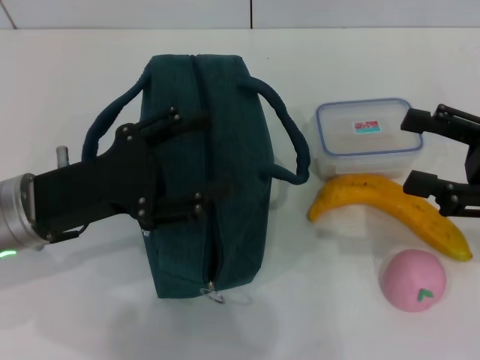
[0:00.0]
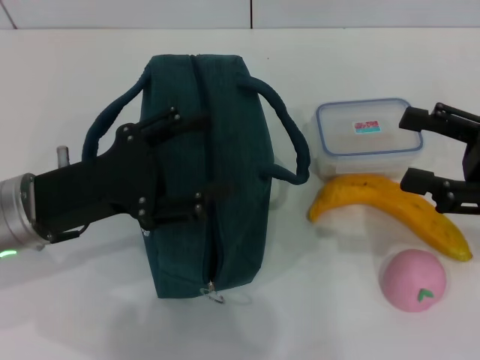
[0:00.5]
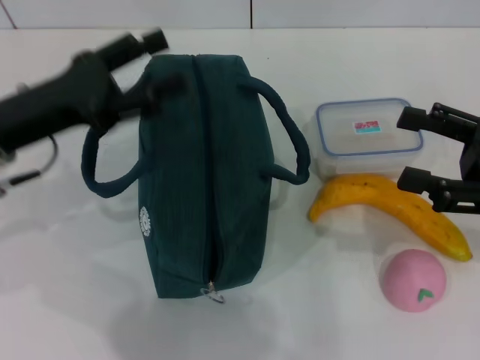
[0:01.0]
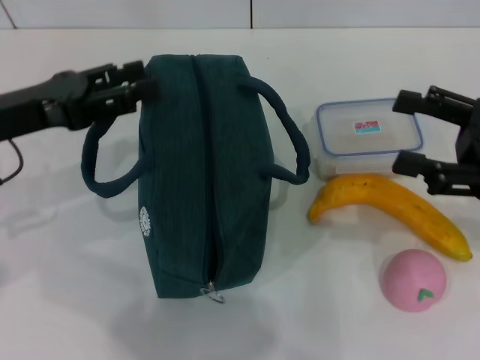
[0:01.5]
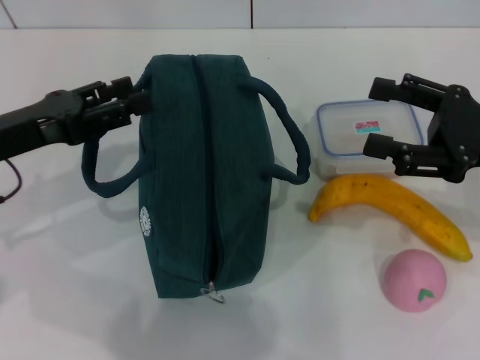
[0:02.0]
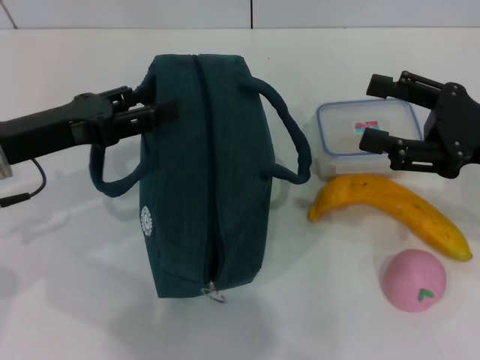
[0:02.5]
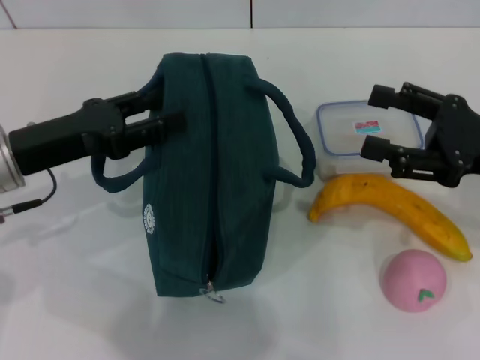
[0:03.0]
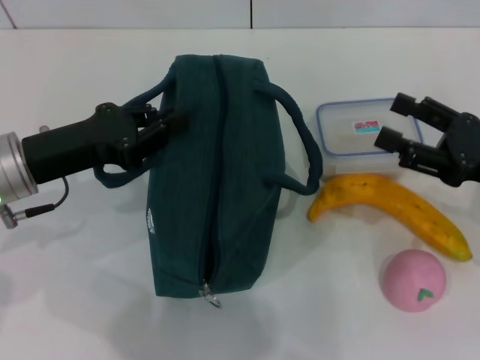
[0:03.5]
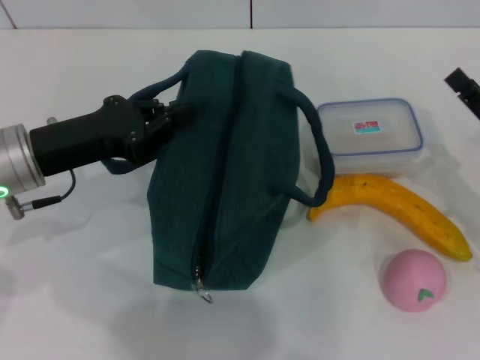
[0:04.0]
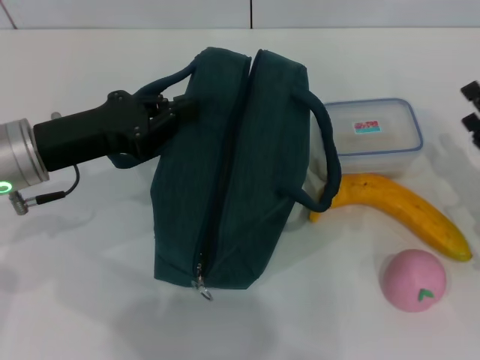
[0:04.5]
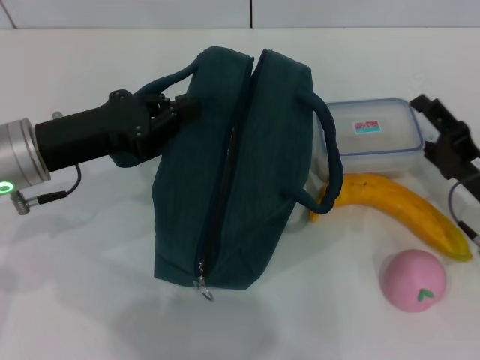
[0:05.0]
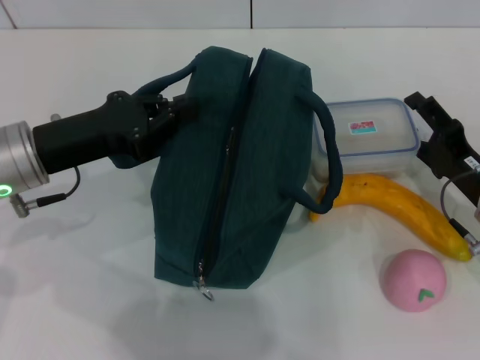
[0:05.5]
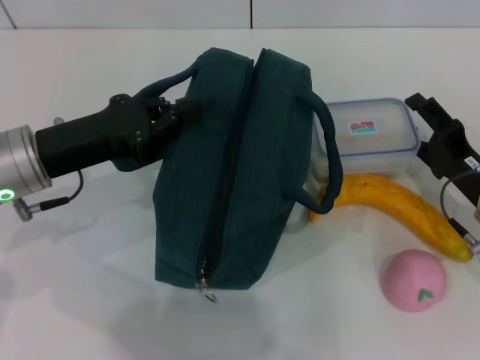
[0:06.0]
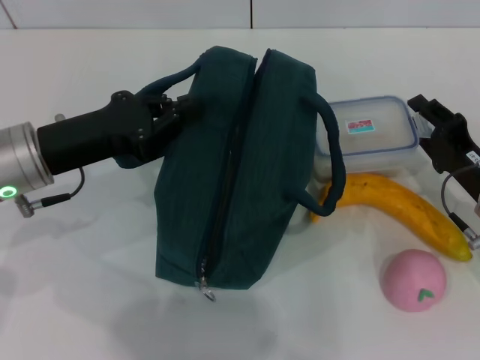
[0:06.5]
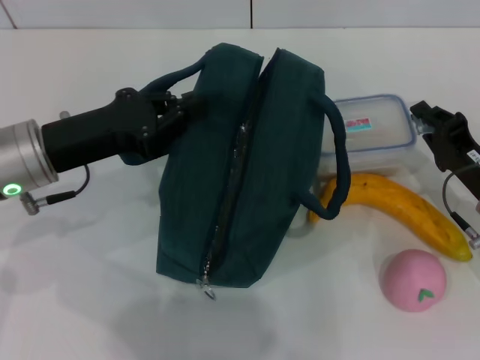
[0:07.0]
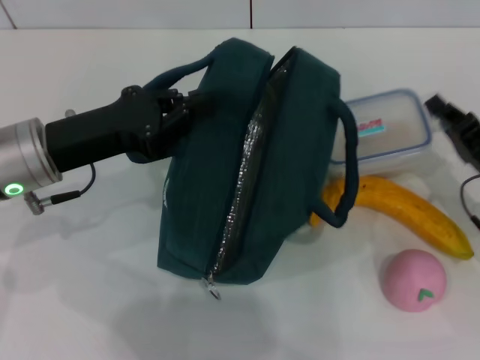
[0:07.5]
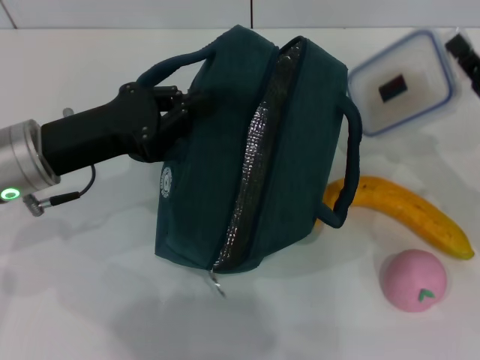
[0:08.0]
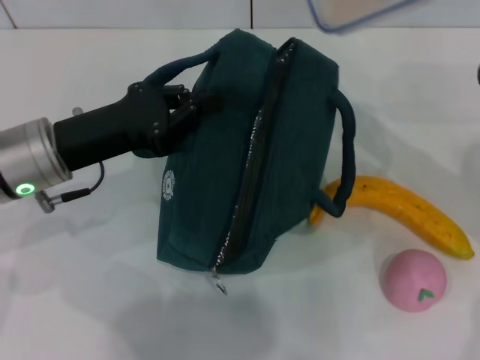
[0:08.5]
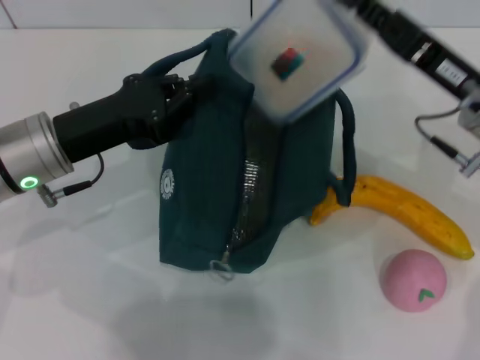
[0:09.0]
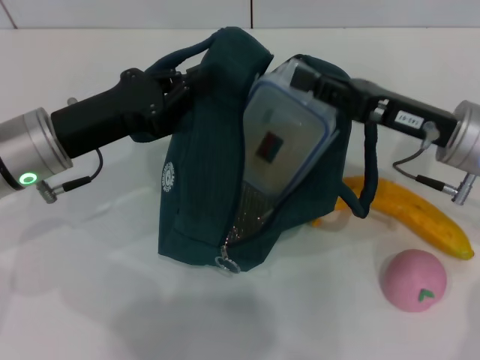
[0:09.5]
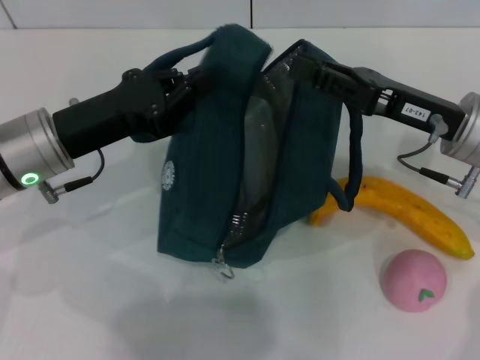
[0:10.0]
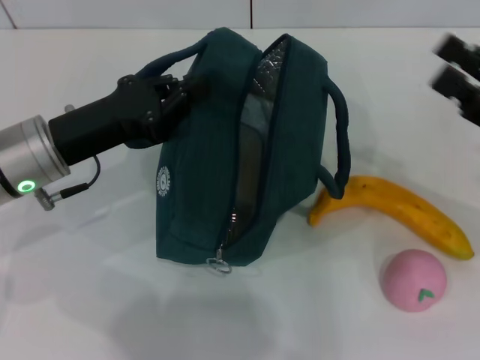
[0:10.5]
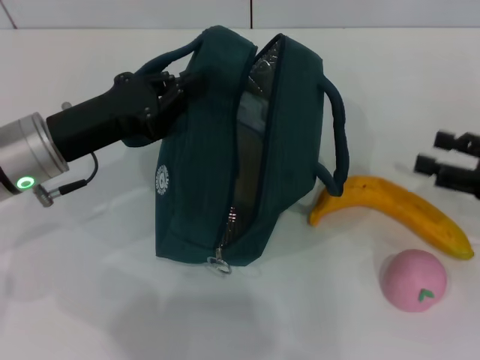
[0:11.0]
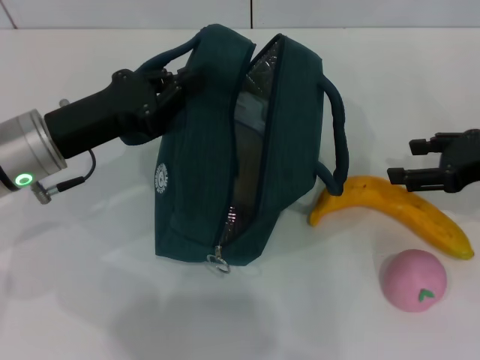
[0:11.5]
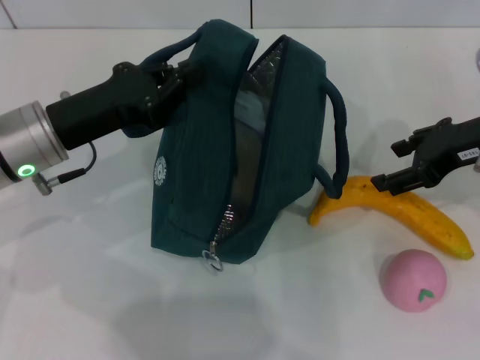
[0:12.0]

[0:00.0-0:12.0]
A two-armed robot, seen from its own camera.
Step, 0:00.0 to 0:04.0: Hold the lunch bag with your left hand.
Step, 0:04.5 to 0:07.0: Pick up the lunch box with your right hand.
Step, 0:07.5 to 0:09.5: Place the lunch box into the lunch bag with your right hand.
0:00.0 to 0:02.0: The left gripper heads to the left, covering about 5 cm.
0:02.0 to 0:04.0: The left gripper closes up. The right gripper travels downward by approximately 10 cm.
0:04.0 to 0:06.0: The right gripper ends up roughly 5 cm from where it was.
0:06.0 to 0:08.0: The right gripper is displaced upward by some 5 cm, and closes up.
0:08.0 to 0:10.0: The right gripper is displaced to the left and upward by roughly 10 cm.
0:10.0 to 0:12.0: The right gripper goes to the right and returns, about 15 cm each way, and opens its fingers.

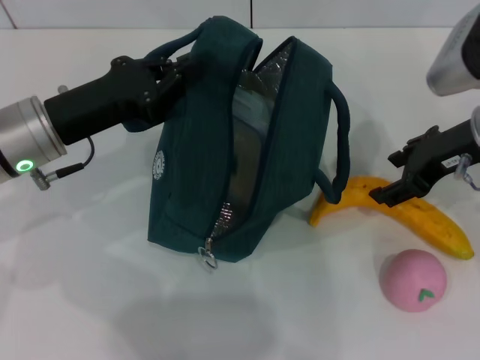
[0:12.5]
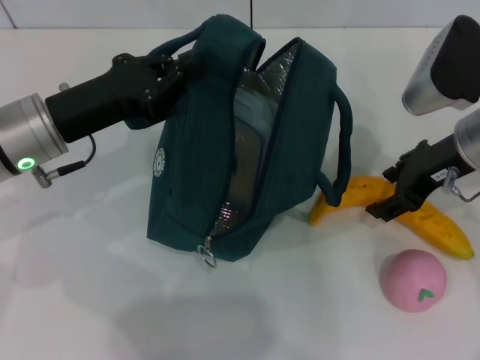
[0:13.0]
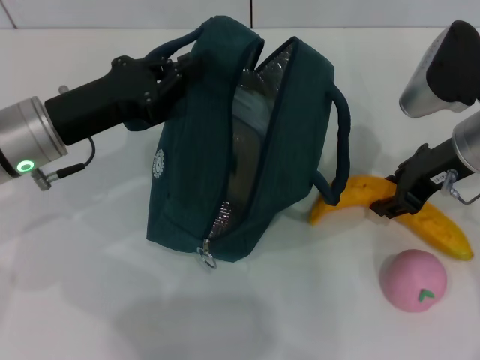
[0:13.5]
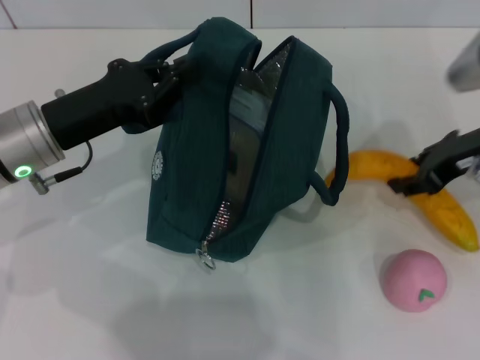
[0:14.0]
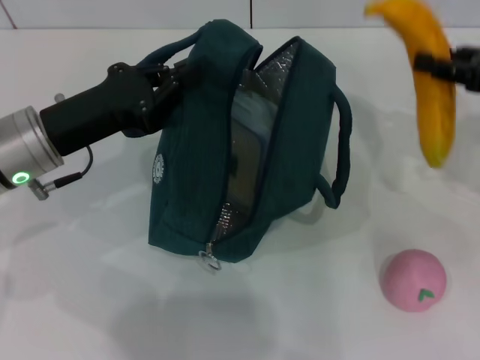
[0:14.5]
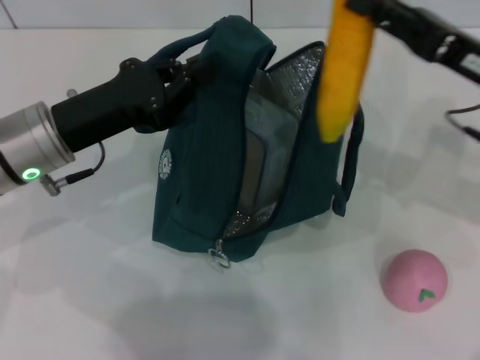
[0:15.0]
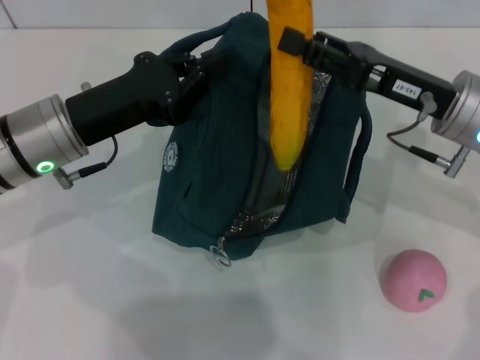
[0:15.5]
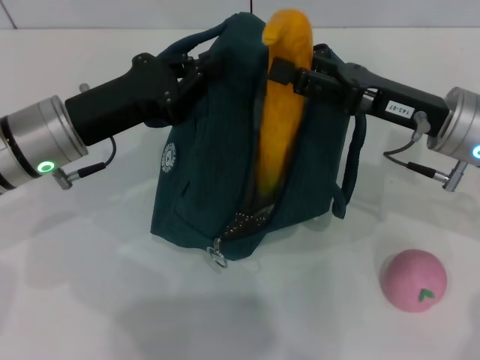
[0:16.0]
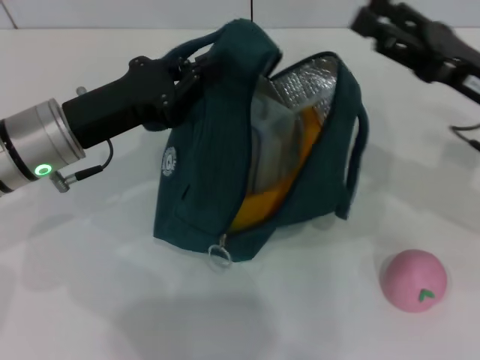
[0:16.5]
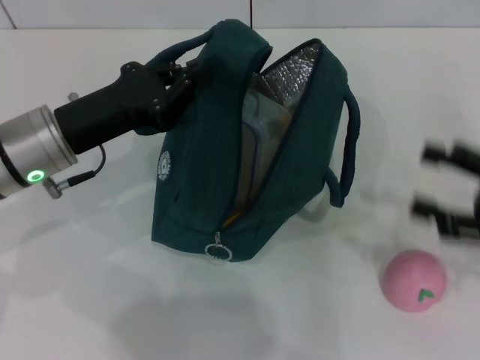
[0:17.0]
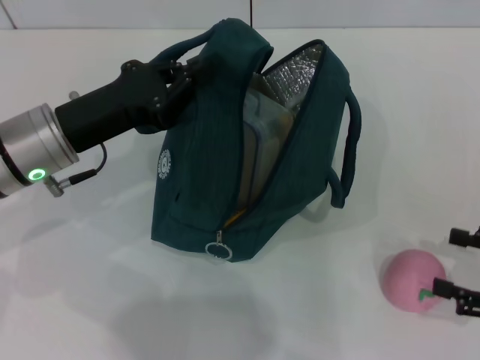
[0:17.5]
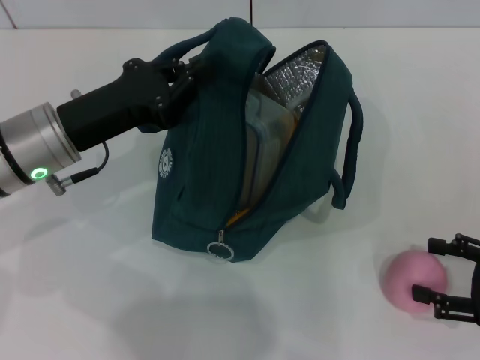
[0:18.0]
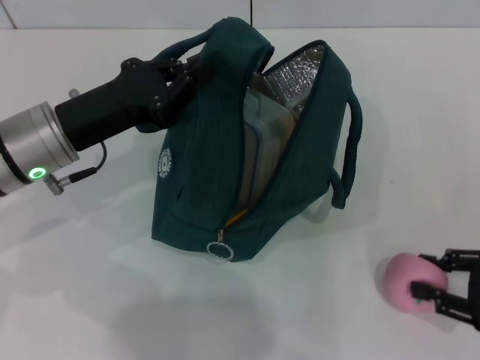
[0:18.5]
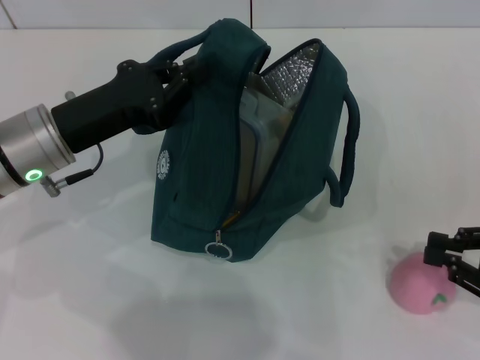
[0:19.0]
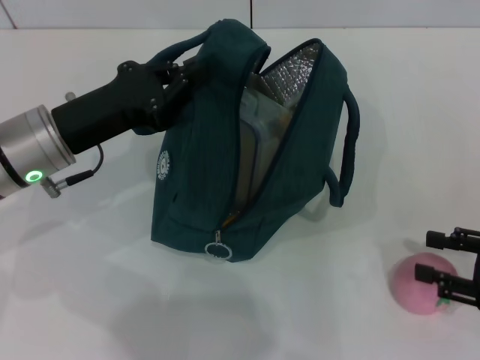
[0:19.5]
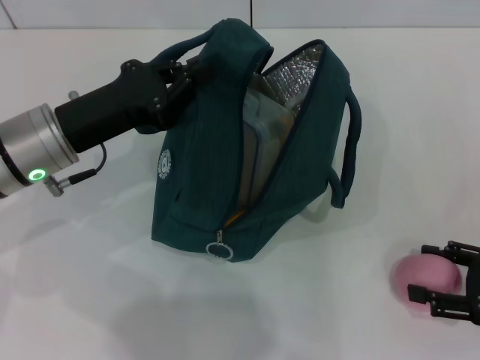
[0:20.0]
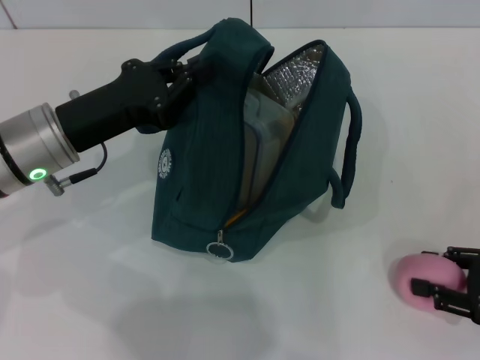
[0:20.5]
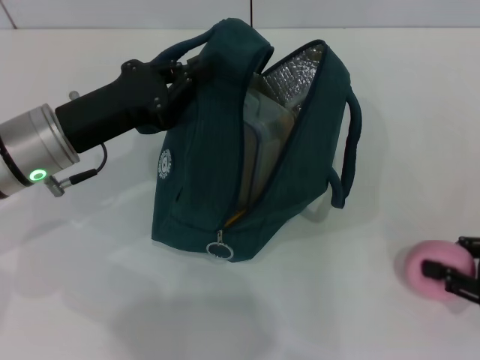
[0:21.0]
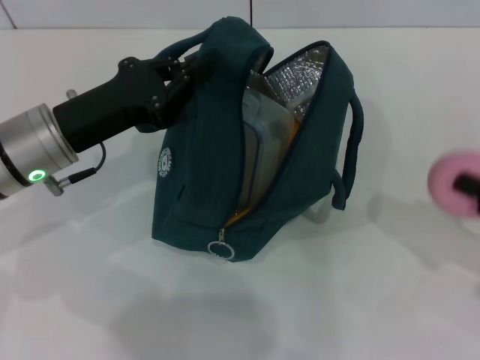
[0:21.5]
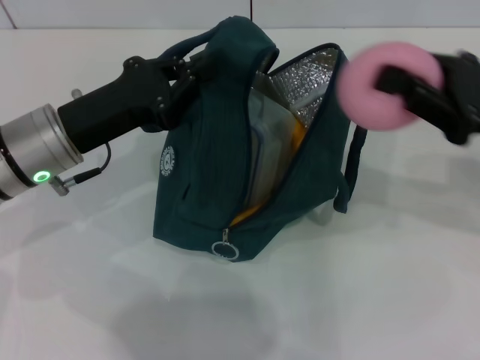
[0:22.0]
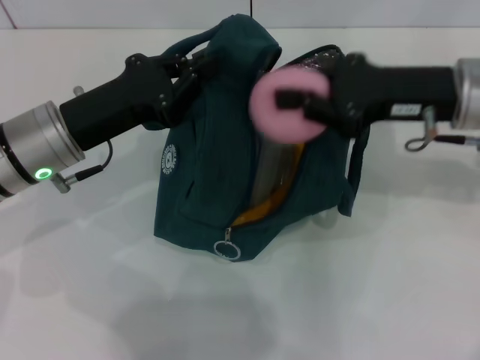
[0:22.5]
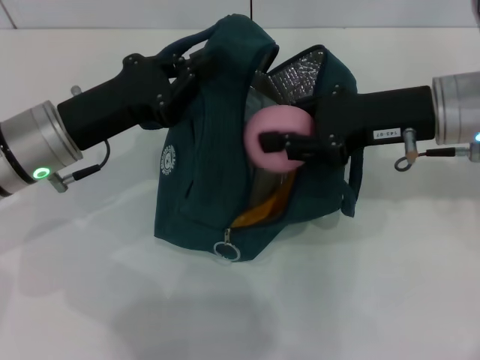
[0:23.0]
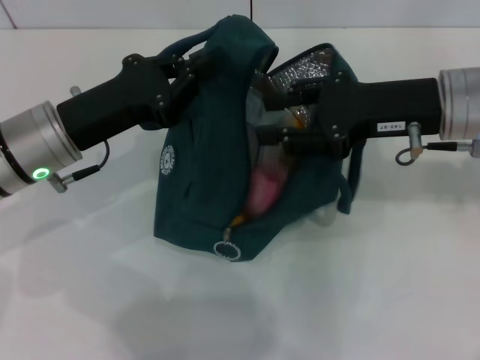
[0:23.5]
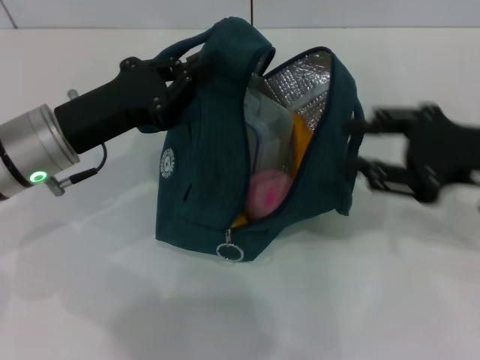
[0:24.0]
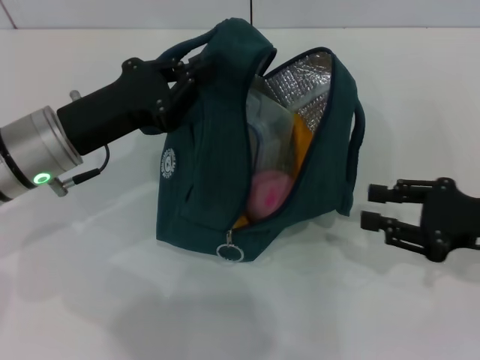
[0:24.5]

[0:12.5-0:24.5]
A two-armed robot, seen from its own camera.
Step, 0:14.0 to 0:16.0: Put the banana into the lunch bag with your right hand.
Step, 0:16.5 to 0:20.5: Grab the peach with your right hand.
0:12.5 to 0:14.5: The right gripper goes some 10 cm to the right, and closes up.
0:14.5 to 0:16.5: The right gripper goes about 5 cm to the left, and opens its fingers.
0:16.5 to 0:18.5: The right gripper moves backward, downward and to the right, roughly 15 cm, and closes up.
0:18.5 to 0:20.5: There are only small adjustments of the grippers.
0:20.5 to 0:22.5: The right gripper shifts some 25 cm to the left, upward and forward, and closes up.
0:22.5 to 0:24.5: The right gripper goes some 15 cm to the right, downward and backward, and opens its fingers.

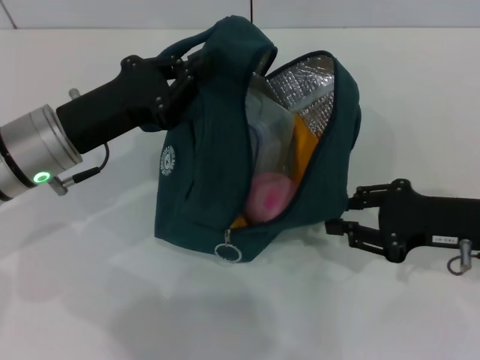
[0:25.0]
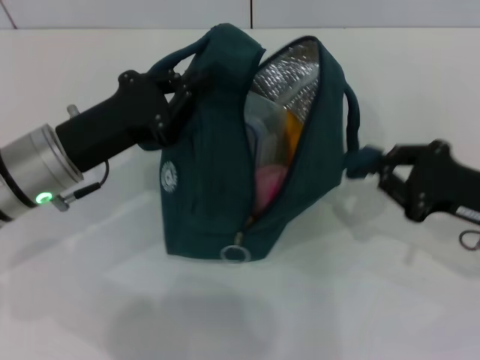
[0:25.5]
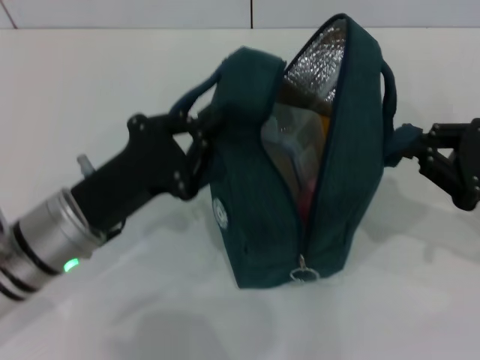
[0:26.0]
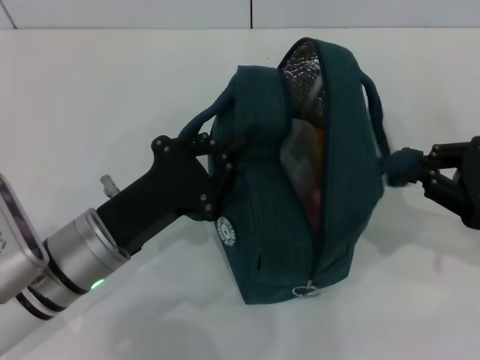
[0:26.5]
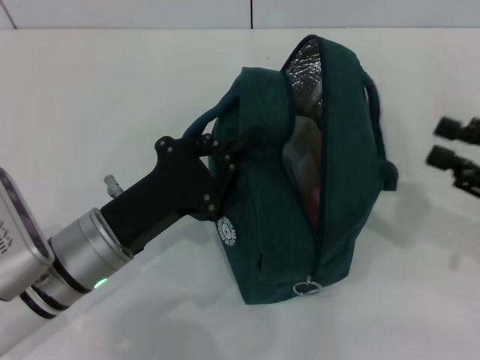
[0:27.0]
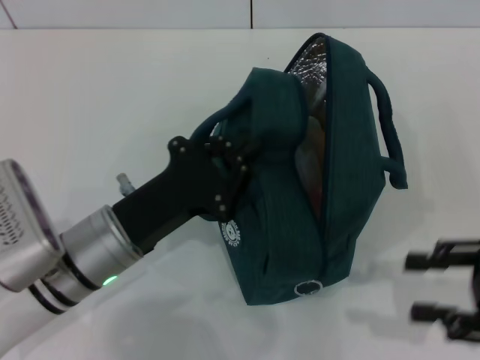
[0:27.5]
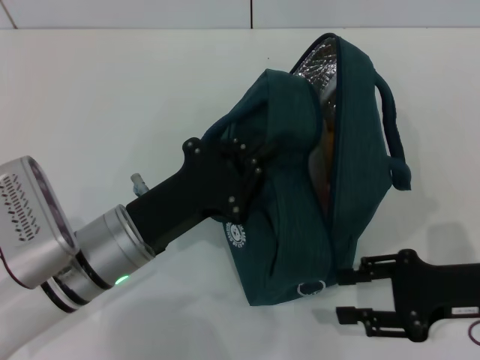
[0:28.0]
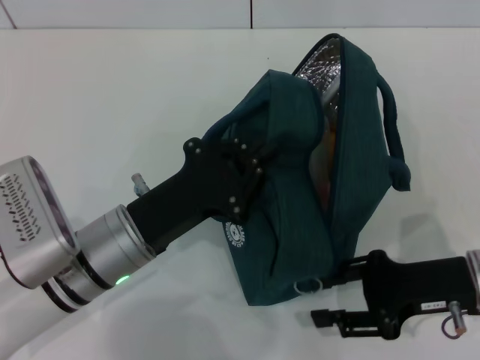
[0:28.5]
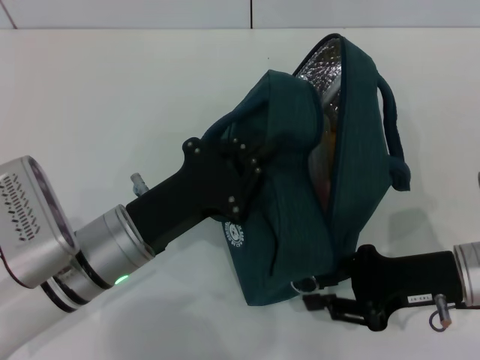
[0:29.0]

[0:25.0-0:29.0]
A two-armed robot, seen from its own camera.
0:25.0 to 0:27.0: The left gripper heads backward and downward, covering some 10 cm. The right gripper travels to the right by roughly 5 cm.
0:27.0 to 0:29.0: The right gripper moves to the left and downward, roughly 10 cm.
